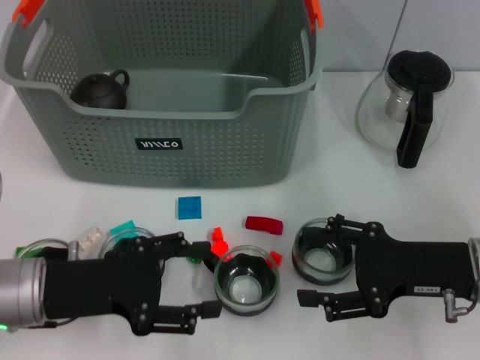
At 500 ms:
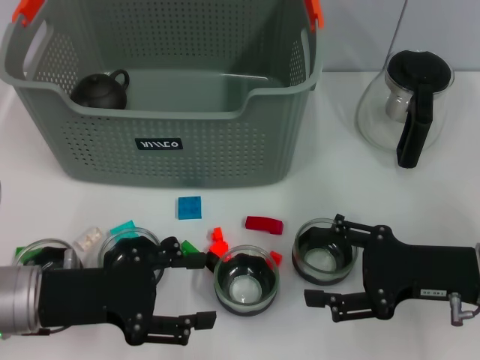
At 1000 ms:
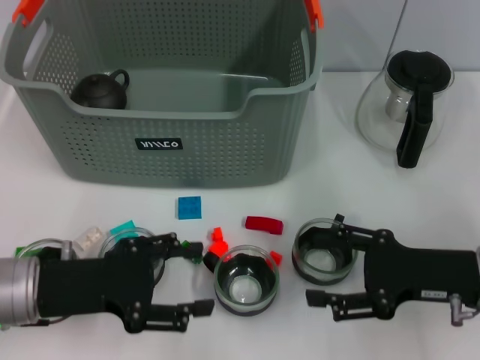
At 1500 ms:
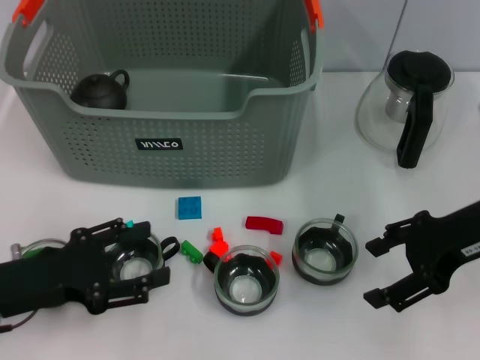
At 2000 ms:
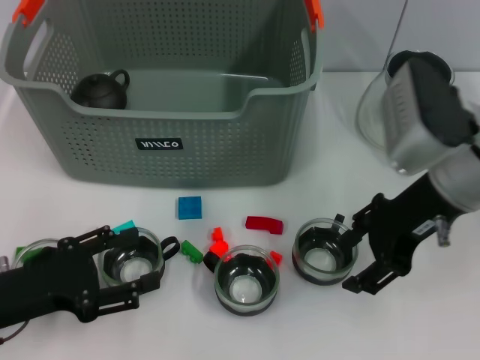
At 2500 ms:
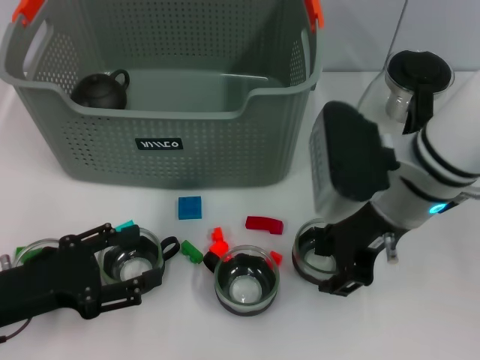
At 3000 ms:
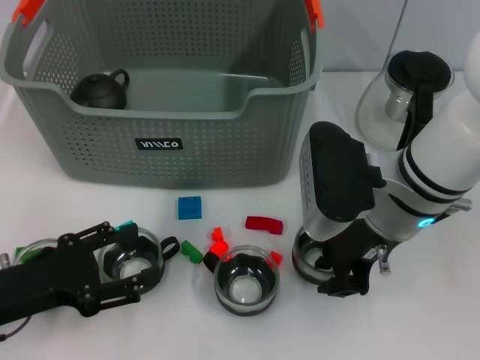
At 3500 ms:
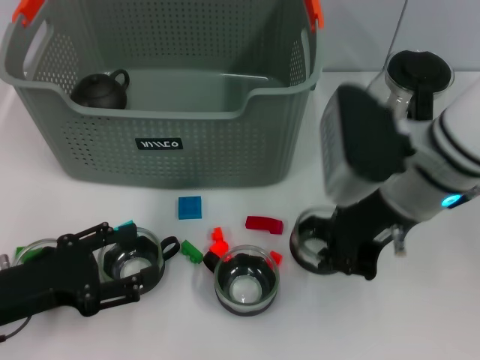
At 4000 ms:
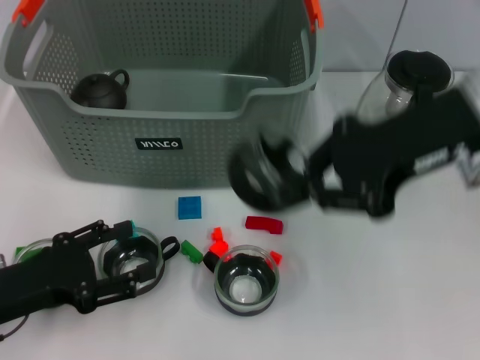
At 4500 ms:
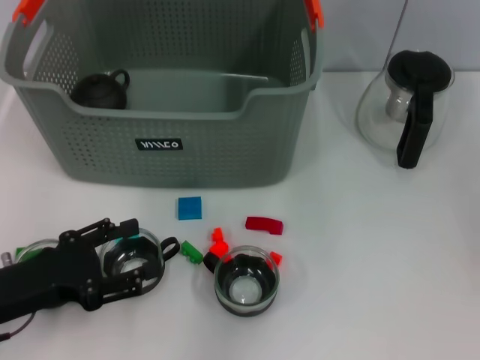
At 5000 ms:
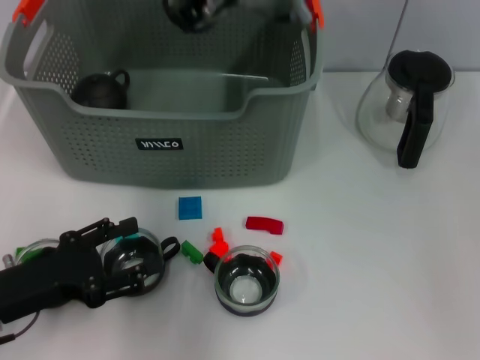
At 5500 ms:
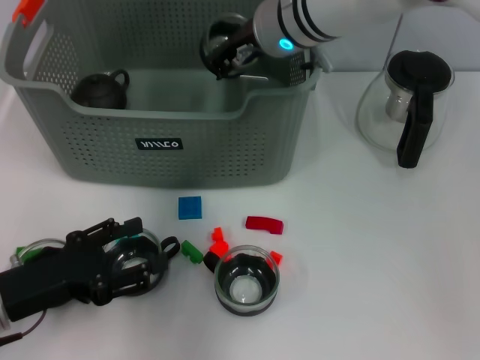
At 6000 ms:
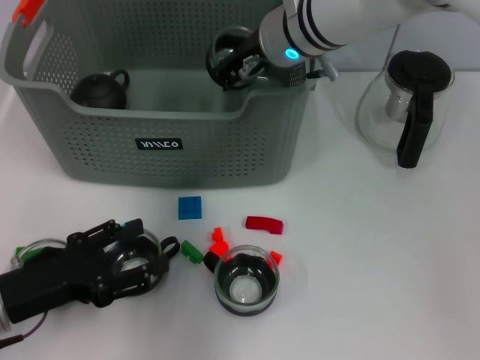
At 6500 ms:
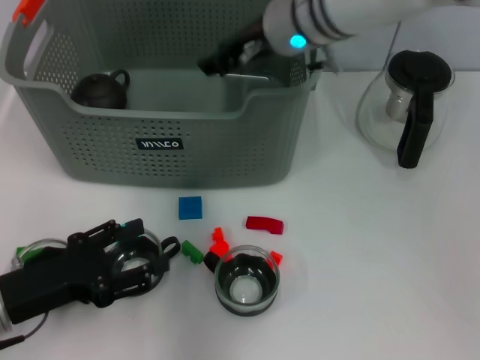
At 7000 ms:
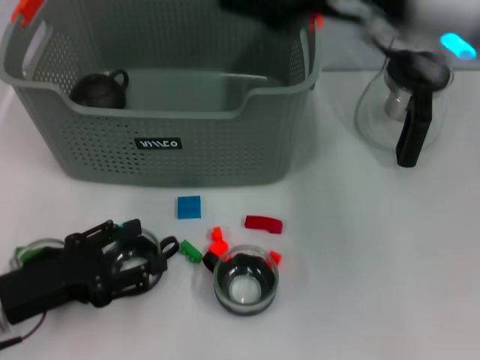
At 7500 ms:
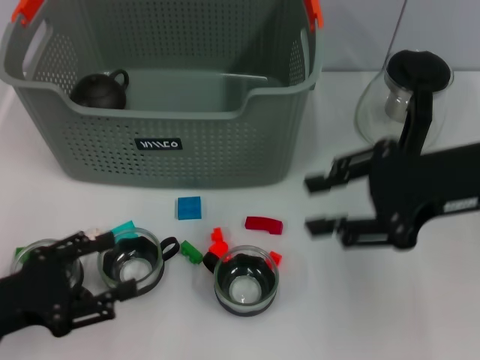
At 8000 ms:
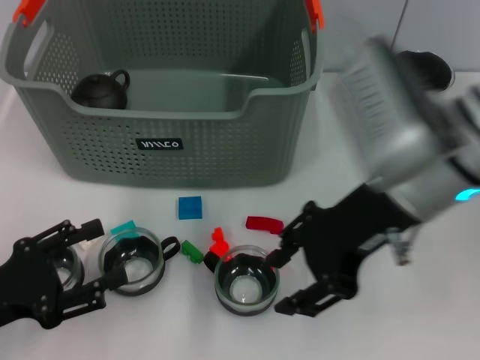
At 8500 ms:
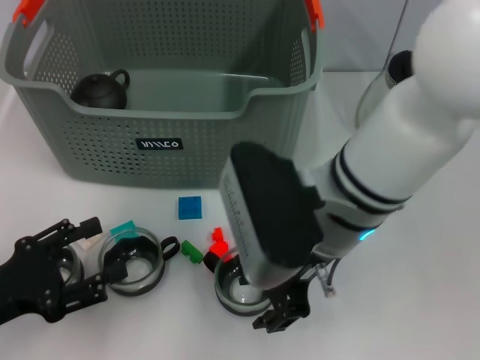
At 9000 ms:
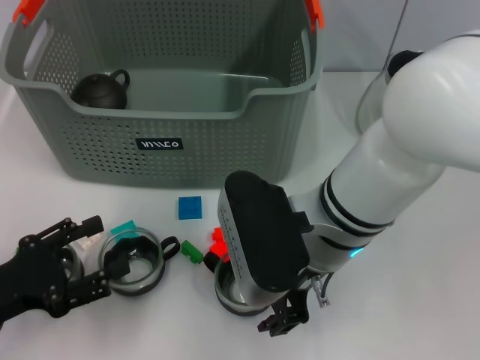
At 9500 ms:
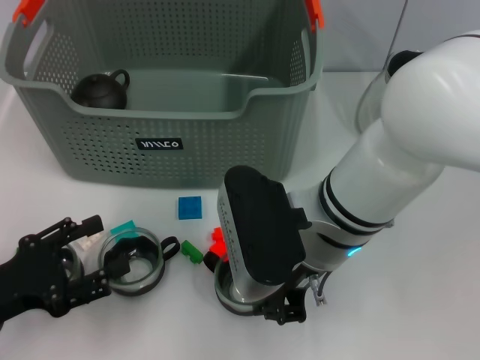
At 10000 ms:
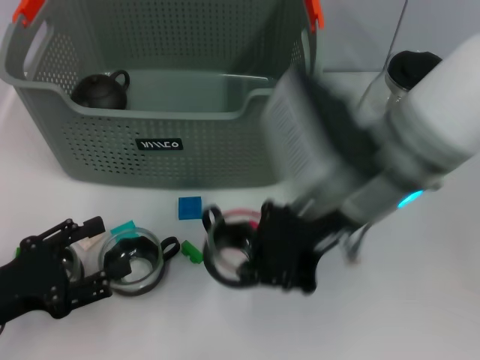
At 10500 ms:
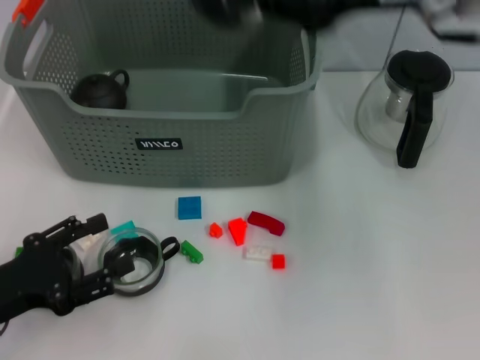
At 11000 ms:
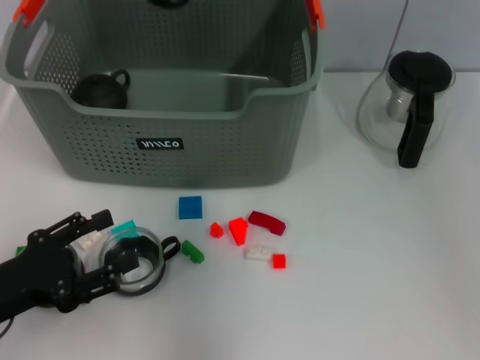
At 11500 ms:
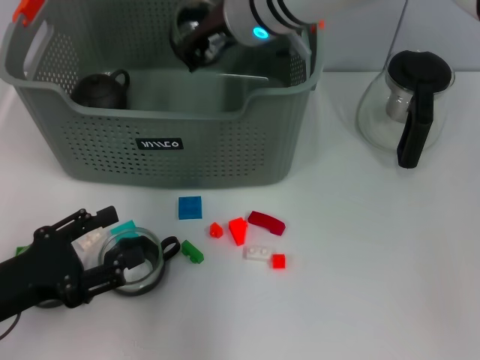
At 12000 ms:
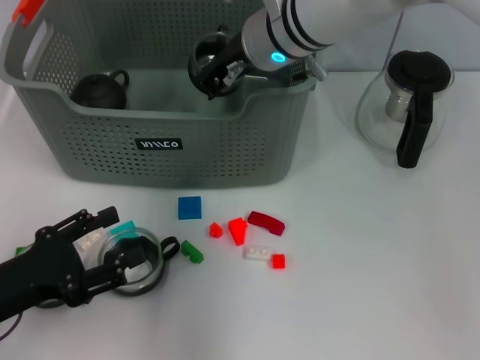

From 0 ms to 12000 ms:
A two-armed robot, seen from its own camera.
Task of the whole recording: pick up the teacup on the table and place it into the storage bin, pick up the block on the table and place it into the storage bin.
Step, from 0 ms to 3000 ms: Grasp the cup with right gripper.
Step, from 3500 ms to 6000 ms: Place the cup in the storage box with right gripper.
Step, from 6500 ms to 9500 ms: Grasp the cup with right gripper.
From 0 ms to 2000 ms: The left gripper moves about 5 cm. The right gripper moves upward, forward and to the left, roughly 15 cm.
From 2000 ms to 4000 ms: The right gripper heads upward, covering approximately 10 cm, and closes its fingers.
From 4000 ms to 6000 ms: The right gripper goes roughly 20 cm to the left, forward and downward.
From 6000 ms to 8000 ms: The right gripper goes some 15 cm backward and to the right, and opens, while the left gripper shifts by some 5 cm.
From 8000 ms to 10000 ms: The right gripper closes its fingers.
From 10000 ms to 12000 ms: The right gripper heads forward and to the left, covering roughly 15 cm.

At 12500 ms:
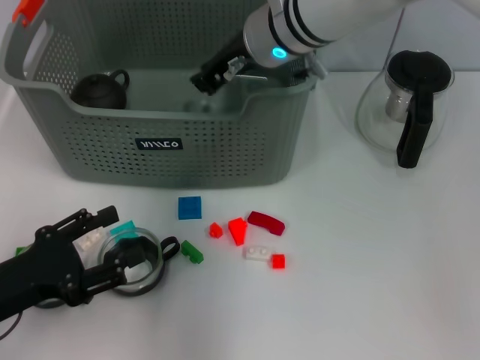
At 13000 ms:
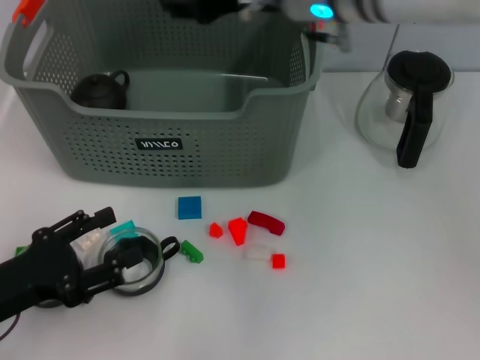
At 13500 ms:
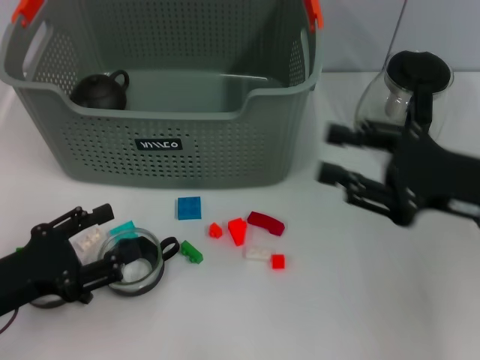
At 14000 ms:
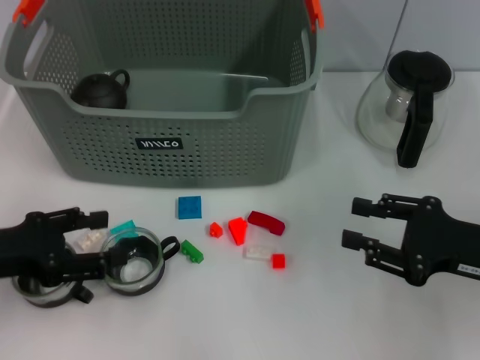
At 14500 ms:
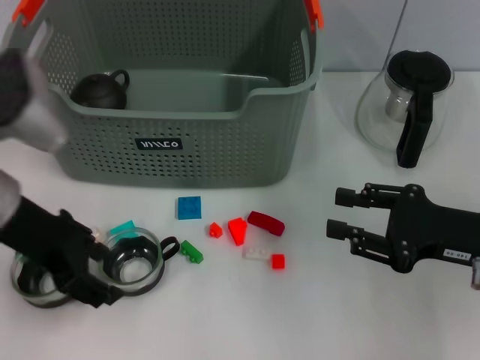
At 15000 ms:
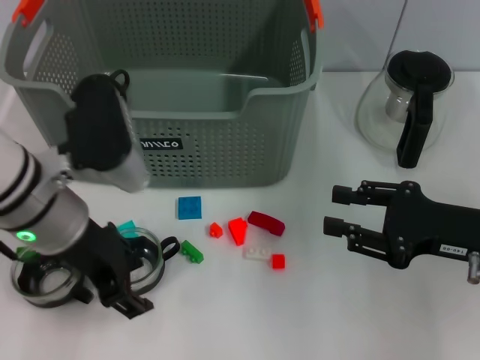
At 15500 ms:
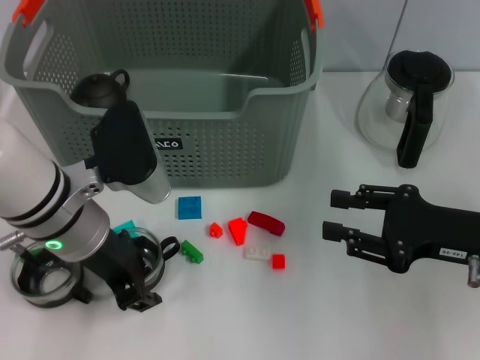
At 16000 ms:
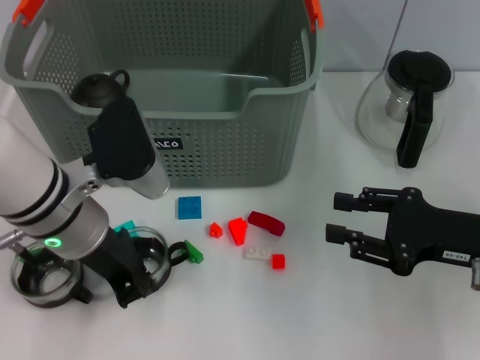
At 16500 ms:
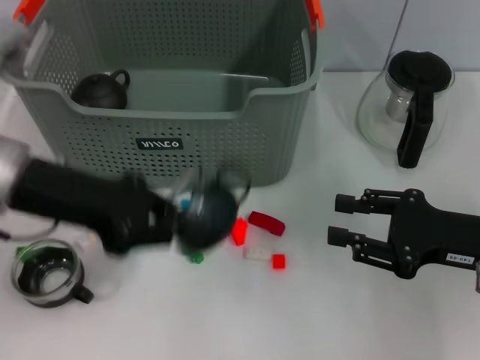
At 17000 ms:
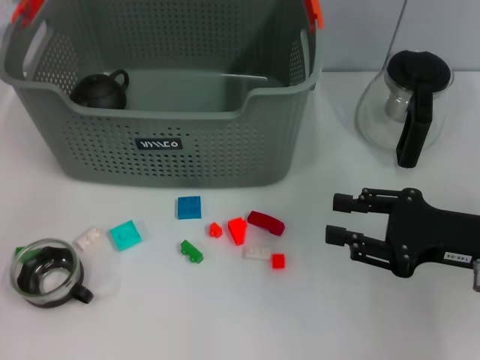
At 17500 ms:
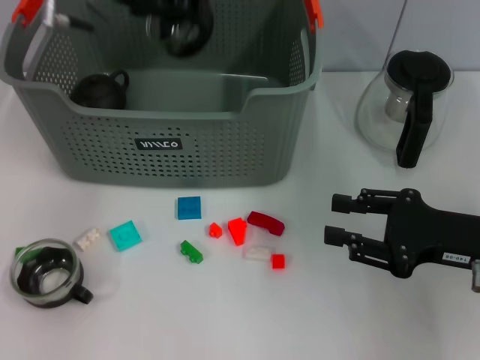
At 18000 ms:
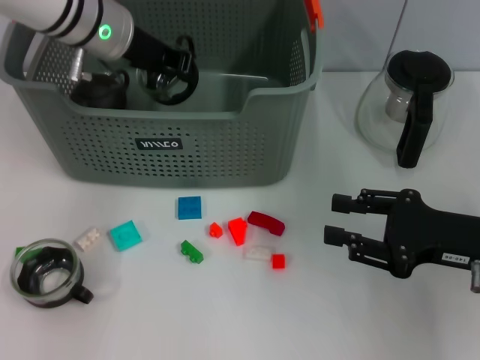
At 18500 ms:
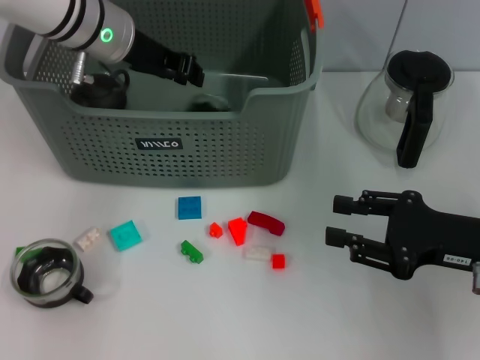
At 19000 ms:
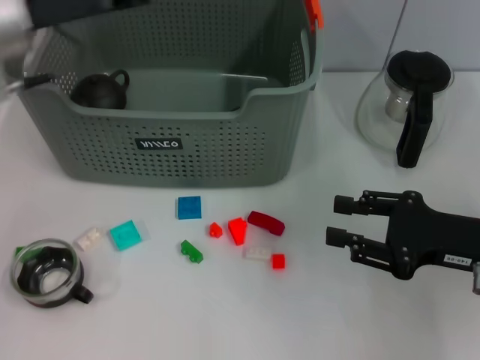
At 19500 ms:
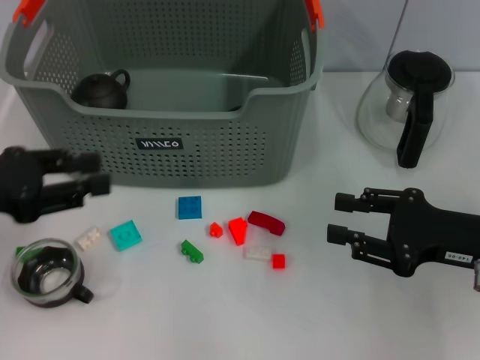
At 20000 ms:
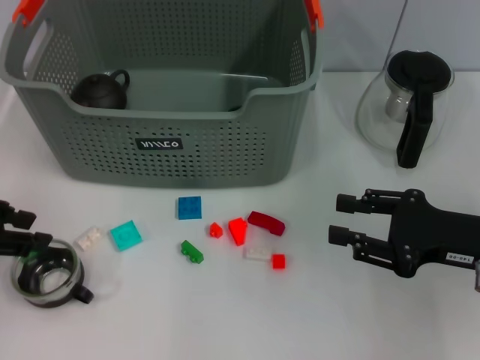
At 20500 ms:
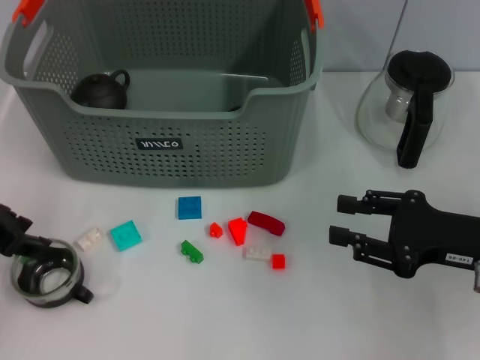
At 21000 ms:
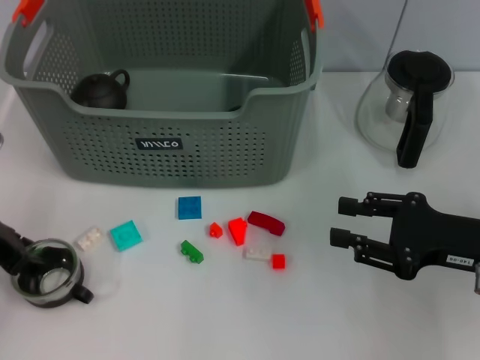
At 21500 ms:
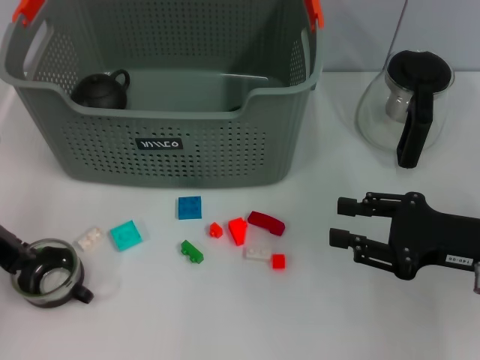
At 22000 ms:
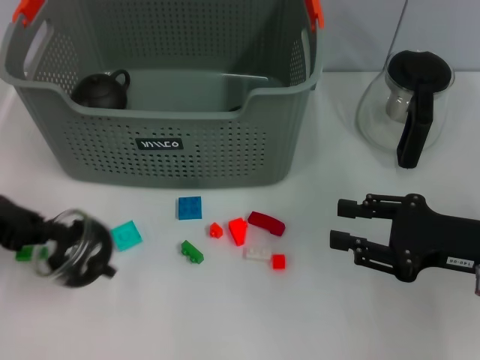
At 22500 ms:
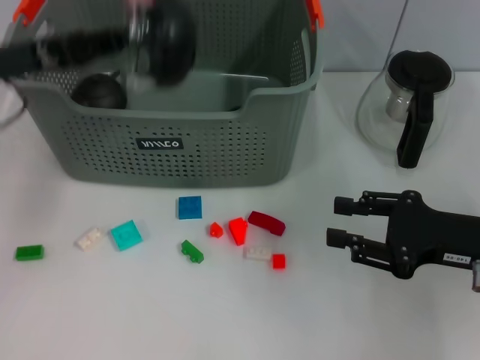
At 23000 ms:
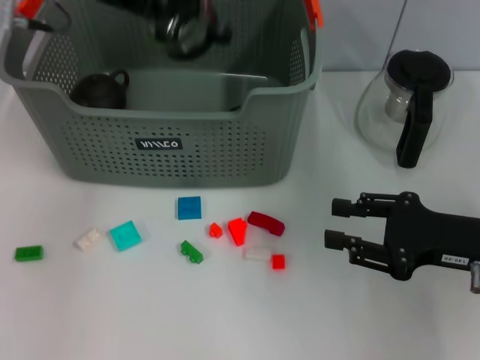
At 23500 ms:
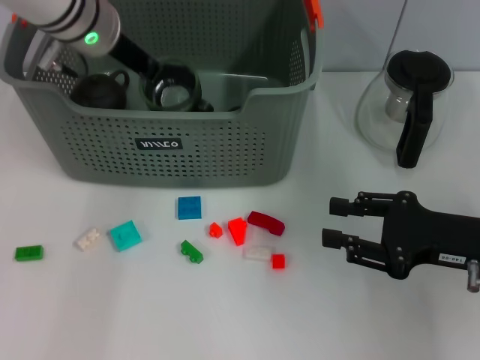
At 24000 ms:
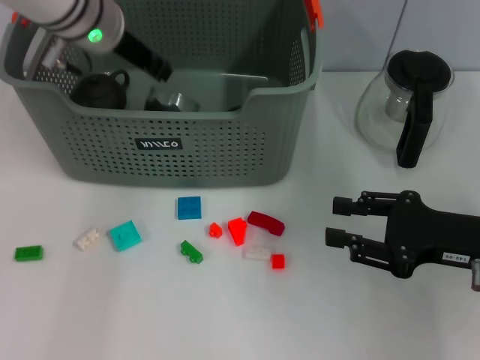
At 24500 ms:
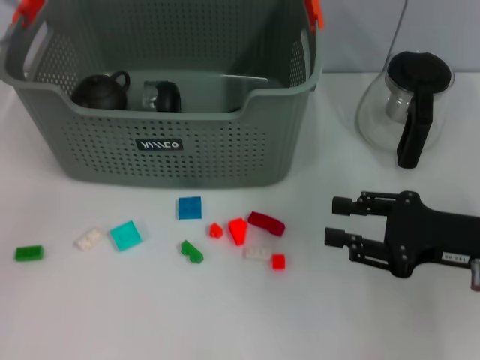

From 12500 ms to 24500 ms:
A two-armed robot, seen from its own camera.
Task of the whole recording: pick up the teacup on the table and place it into the storage bin, pick up the block on the table and place it into the storage bin.
Step, from 13000 ms to 15500 ms: Grasp the cup with left gripper.
Step, from 16000 ms to 18500 ms: Place the cup in the storage box with left gripper.
Step, from 19000 ms to 21500 ms: Grasp the cup with left gripper.
Step, from 22000 ms to 24000 ms: Place the cup in the storage box with left gripper.
From 12500 ms to 14500 ms: The left gripper travels upward, forward and to the right by approximately 15 cm. The right gripper heads to the right, backward and downward, covering about 30 cm, and opens up.
From 14500 ms to 16500 ms: The left gripper closes up.
From 16500 ms to 18500 ms: The left gripper travels forward by about 15 cm.
From 18500 ms to 20500 ms: The left gripper shifts approximately 20 cm backward and to the left, and opens its fingers.
From 20500 ms to 22500 ms: The left gripper ends up approximately 5 cm from where it was, and closes.
From 22500 ms to 24500 ms: The left gripper travels to the right and back again, about 10 cm each way, and opens its fingers.

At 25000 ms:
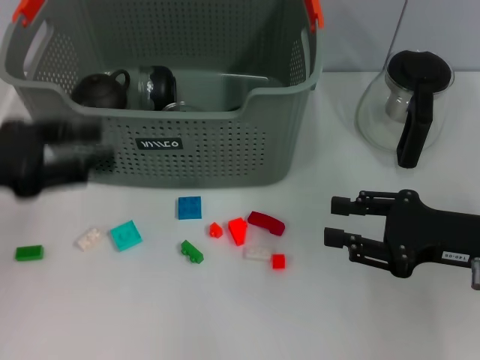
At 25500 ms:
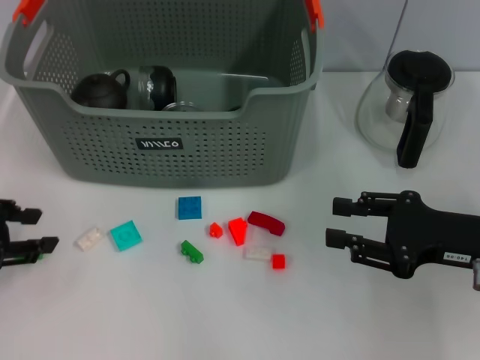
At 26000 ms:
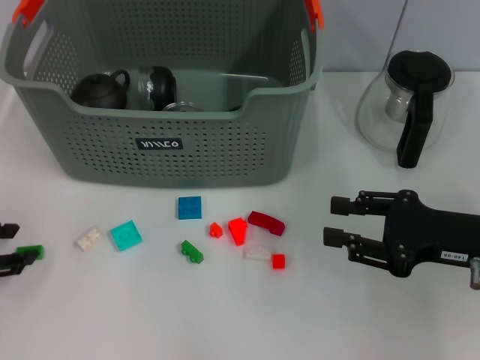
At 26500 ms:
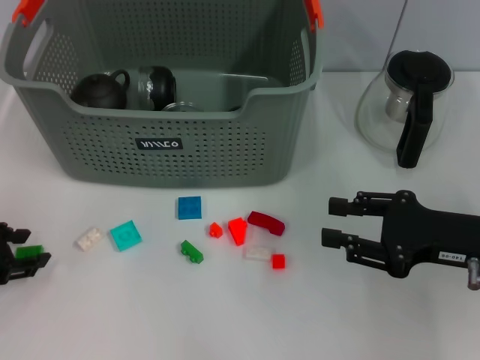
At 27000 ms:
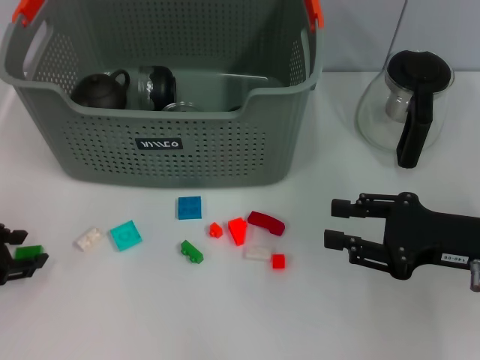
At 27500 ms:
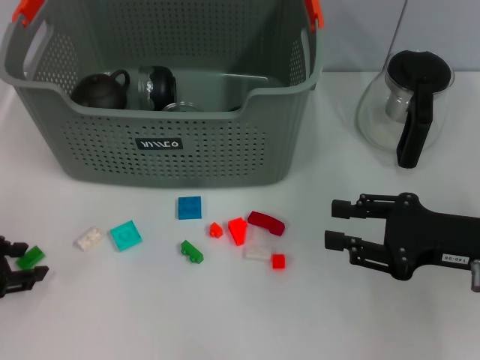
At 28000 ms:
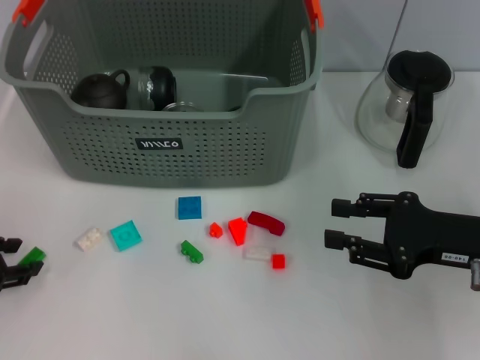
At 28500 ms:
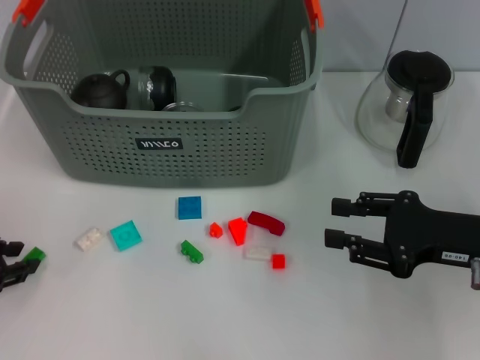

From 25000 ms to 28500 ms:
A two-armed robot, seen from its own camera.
Task of the whole recording: pick up the teacup on the table and place it into the storage bin, pick up the block on the table and place it into the storage bin.
From 25000 ms to 27000 ms: The left gripper goes roughly 10 cm downward.
From 27000 ms to 28500 ms: Neither gripper changes place.
